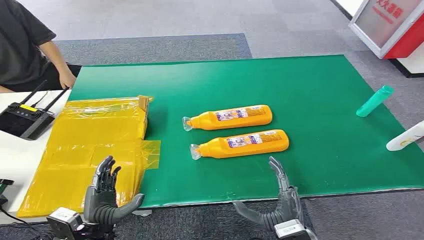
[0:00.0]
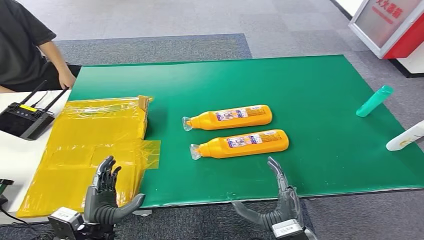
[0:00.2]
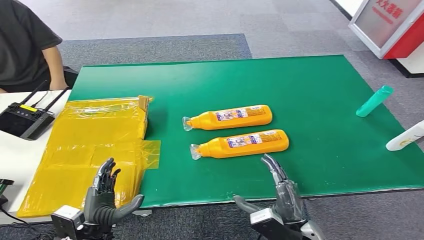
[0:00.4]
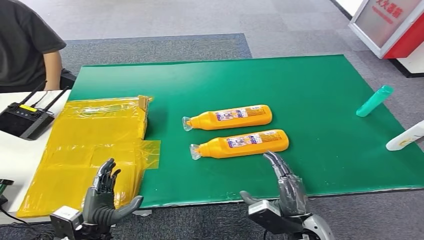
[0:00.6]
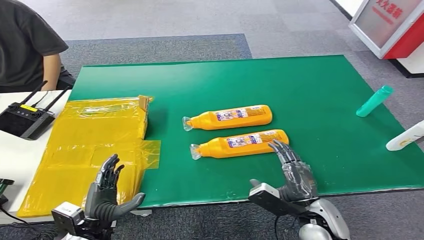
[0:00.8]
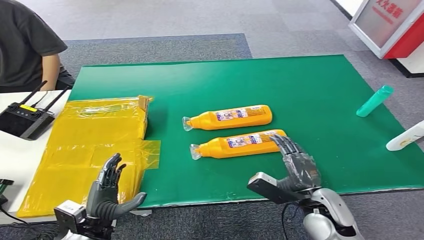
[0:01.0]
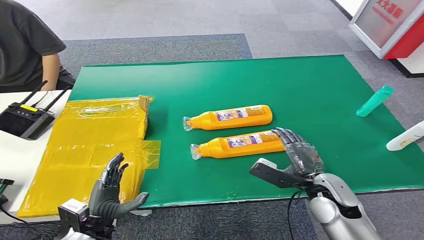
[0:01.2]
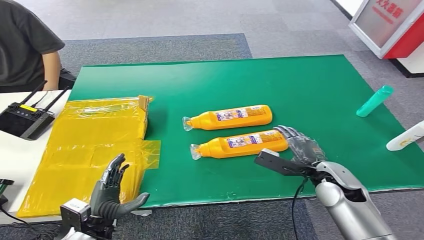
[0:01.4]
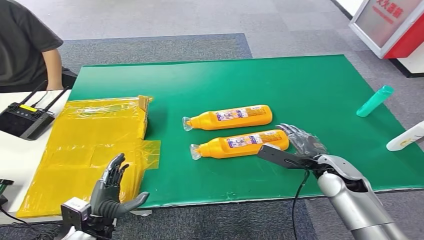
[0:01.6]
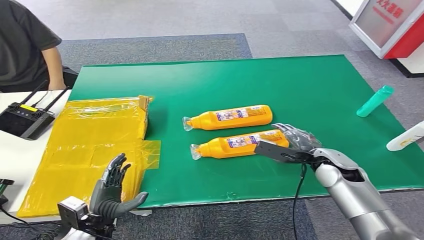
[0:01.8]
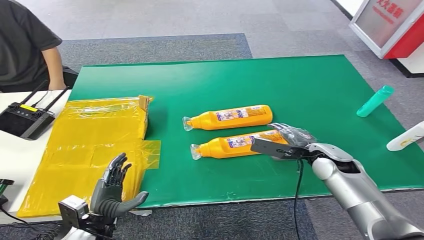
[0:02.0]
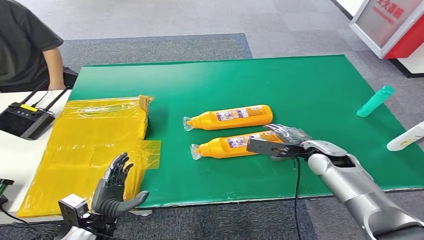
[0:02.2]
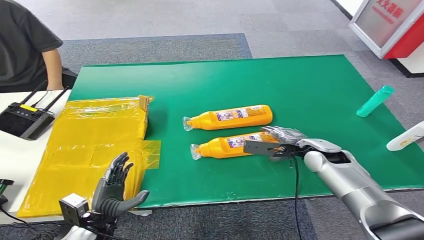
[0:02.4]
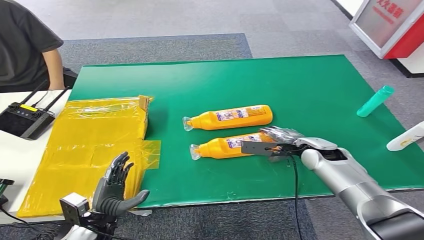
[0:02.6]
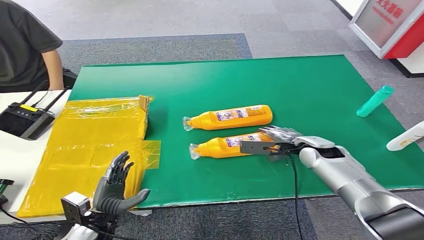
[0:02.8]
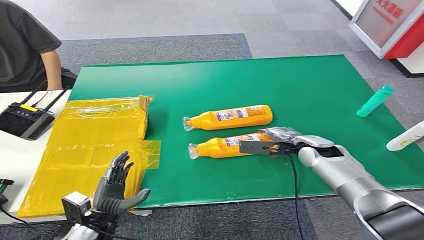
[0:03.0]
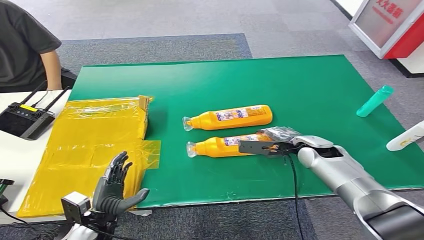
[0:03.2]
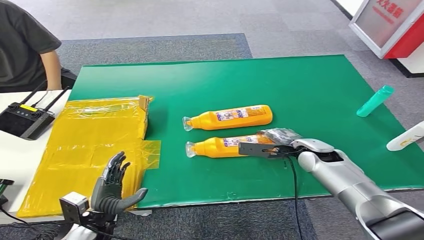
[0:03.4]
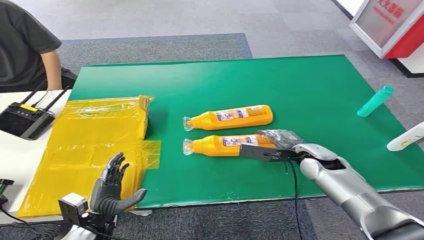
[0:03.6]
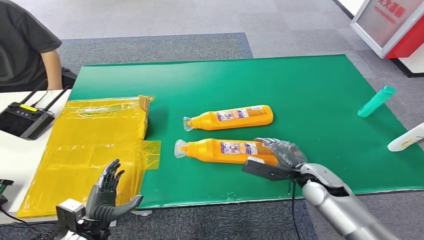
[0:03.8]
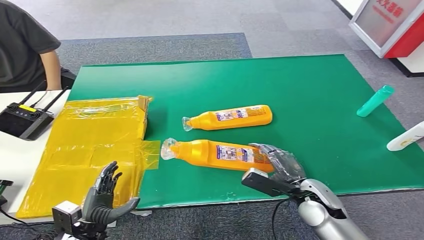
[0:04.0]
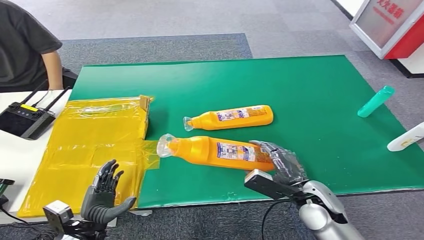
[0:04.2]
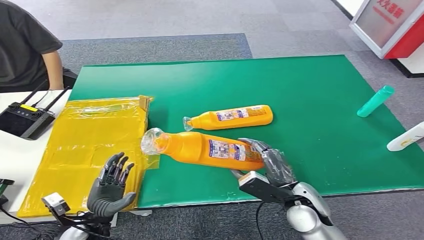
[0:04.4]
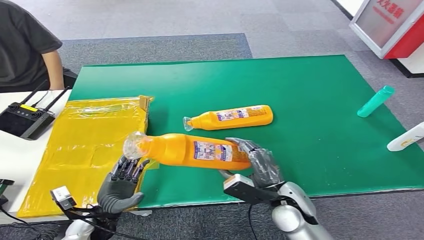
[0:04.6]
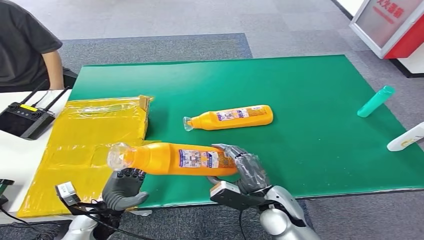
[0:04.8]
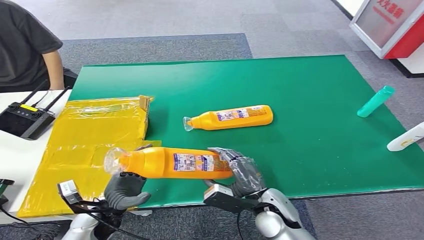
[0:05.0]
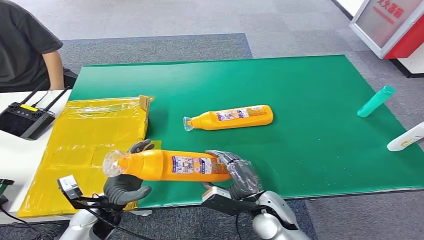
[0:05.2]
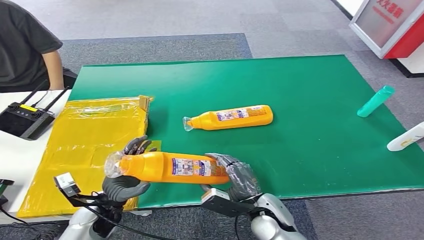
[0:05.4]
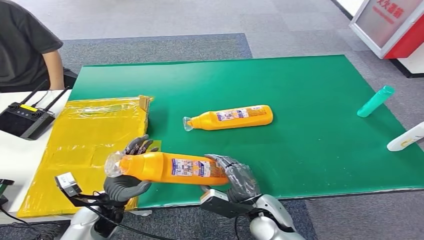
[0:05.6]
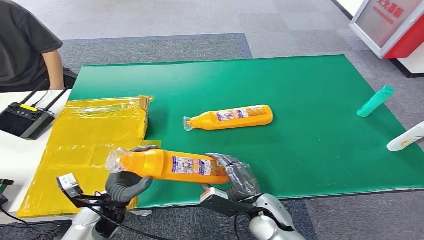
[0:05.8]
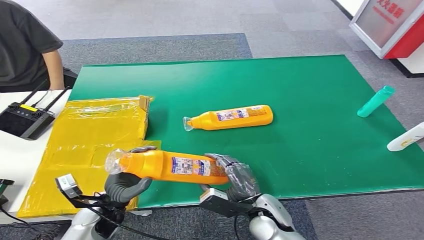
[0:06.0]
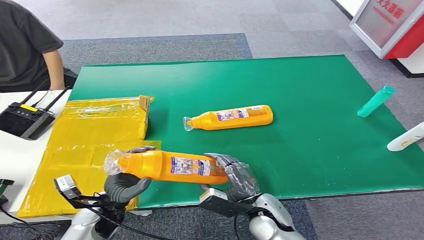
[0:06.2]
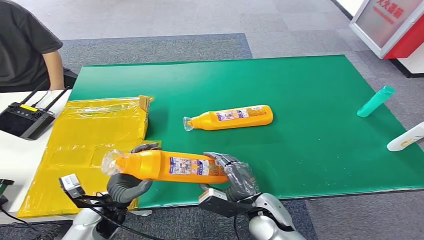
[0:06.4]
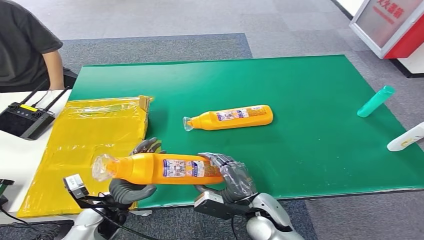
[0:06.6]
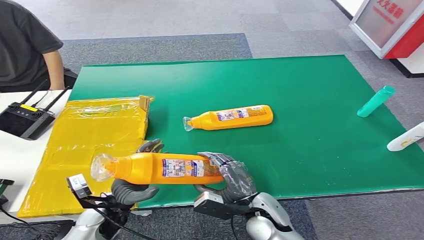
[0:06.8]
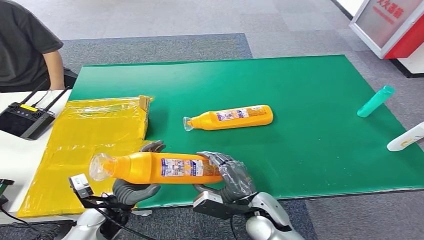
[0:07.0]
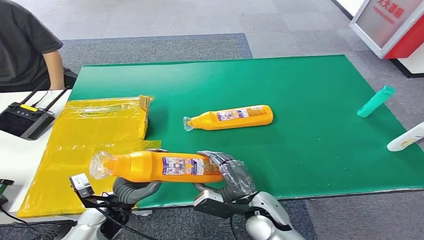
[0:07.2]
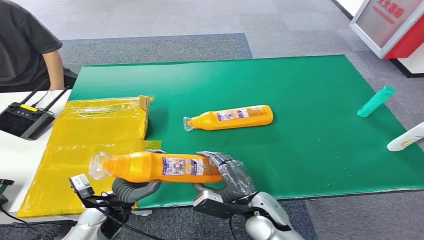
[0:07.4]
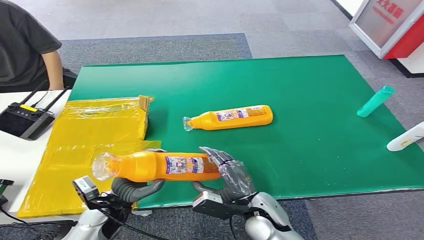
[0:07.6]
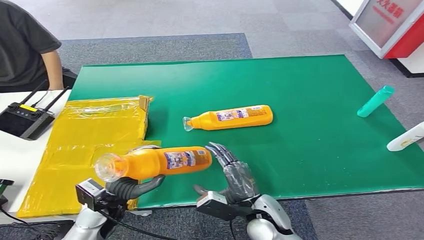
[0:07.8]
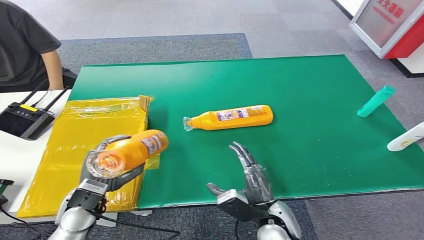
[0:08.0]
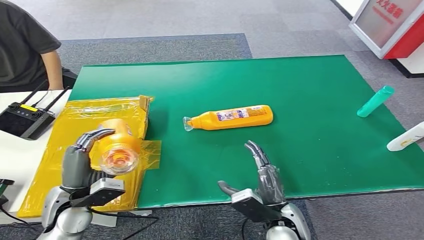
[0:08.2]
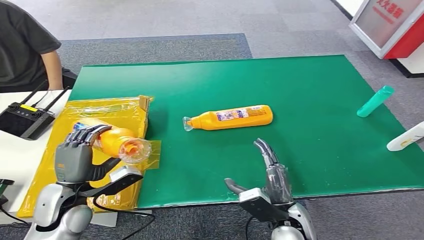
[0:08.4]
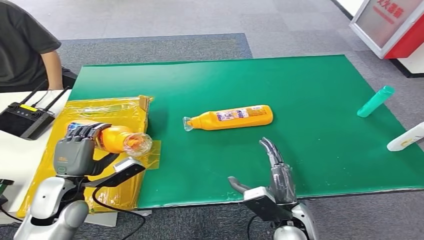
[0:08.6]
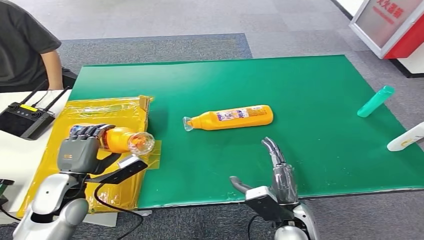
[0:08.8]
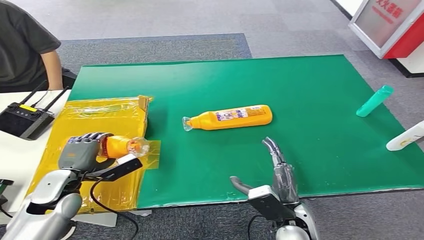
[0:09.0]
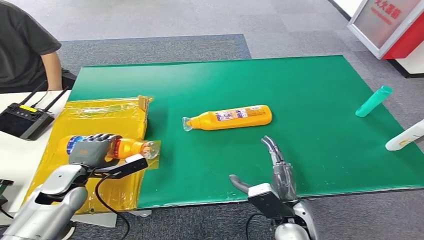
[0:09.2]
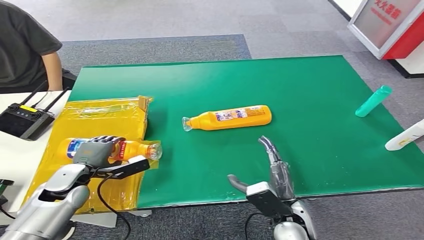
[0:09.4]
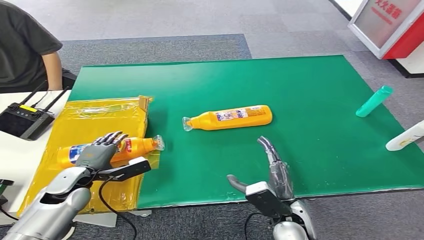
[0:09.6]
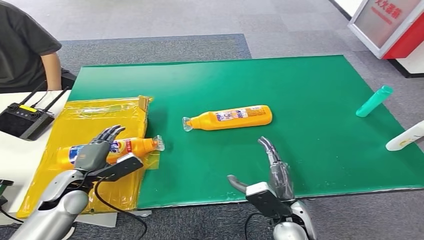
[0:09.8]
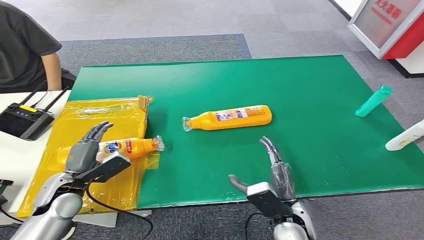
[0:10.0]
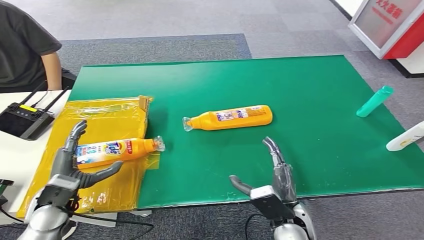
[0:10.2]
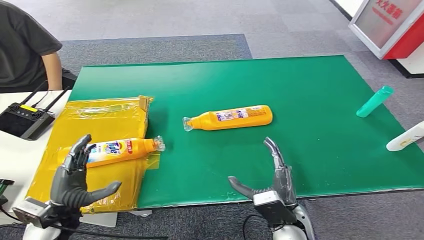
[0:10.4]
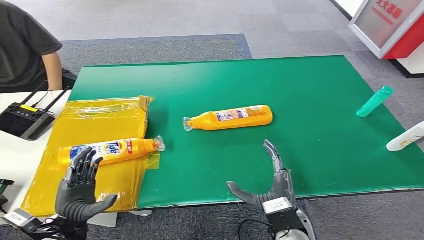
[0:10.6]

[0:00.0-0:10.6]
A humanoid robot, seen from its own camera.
Step, 0:00.0 to 0:04.2: Pick up the bottle from the table.
Step, 0:04.4 to 0:10.6: Turn the bottle to the front side.
0:01.6 to 0:03.0: The right hand travels forward by approximately 10 cm.
0:03.0 to 0:04.6: The right hand heads backward and to the left, covering roughly 20 cm.
0:04.6 to 0:06.0: The right hand moves roughly 5 cm.
0:06.0 to 0:07.6: The hands stay close to where they were, moving slightly.
0:07.6 to 0:09.0: The left hand heads to the left and upward, covering roughly 10 cm. Meanwhile the right hand travels to the right by about 5 cm.
0:09.0 to 0:10.6: The left hand goes roughly 10 cm backward and downward.

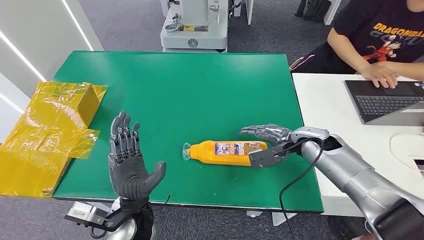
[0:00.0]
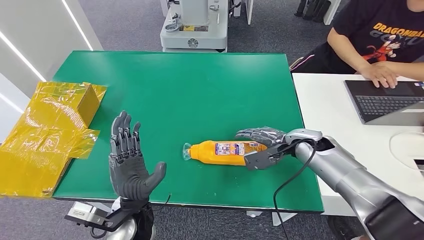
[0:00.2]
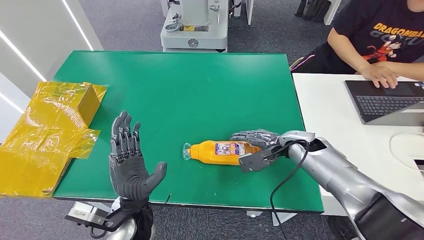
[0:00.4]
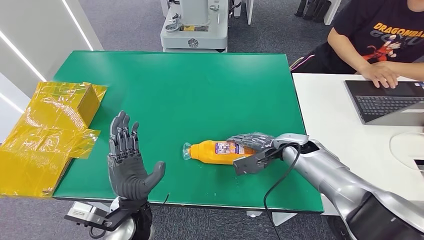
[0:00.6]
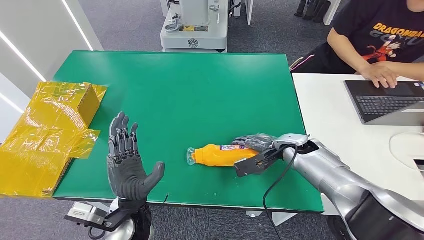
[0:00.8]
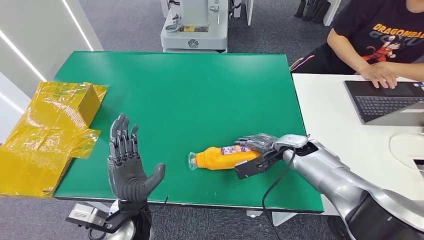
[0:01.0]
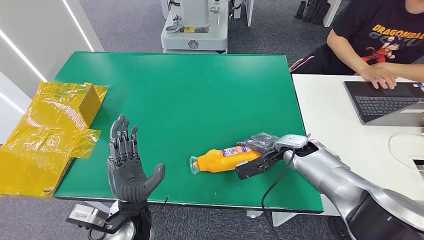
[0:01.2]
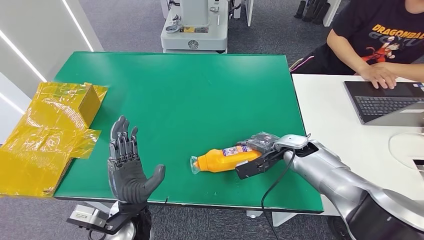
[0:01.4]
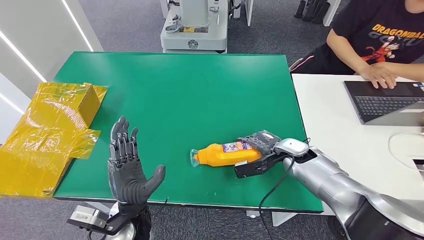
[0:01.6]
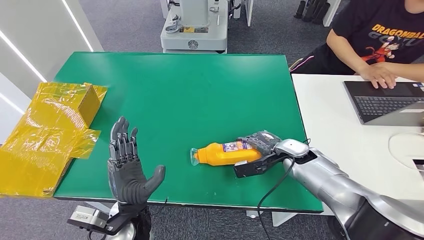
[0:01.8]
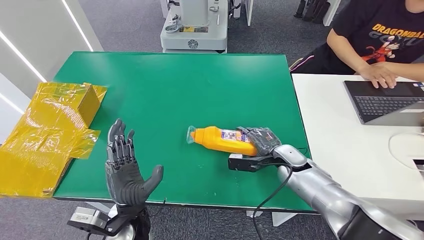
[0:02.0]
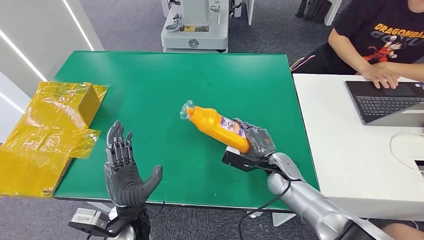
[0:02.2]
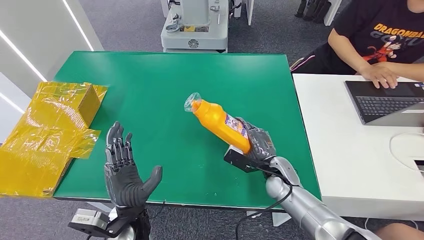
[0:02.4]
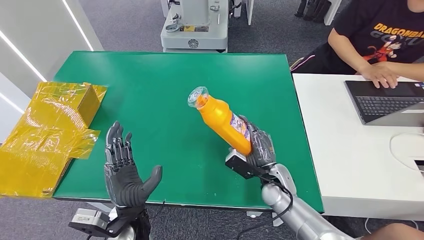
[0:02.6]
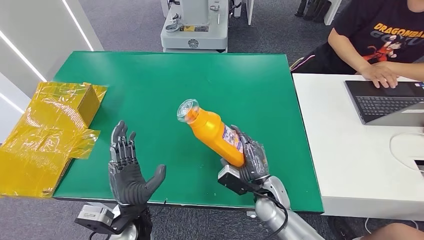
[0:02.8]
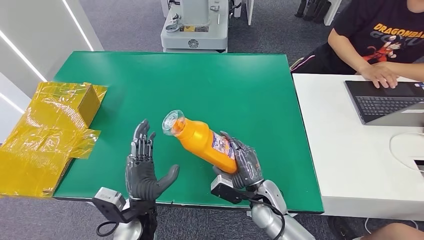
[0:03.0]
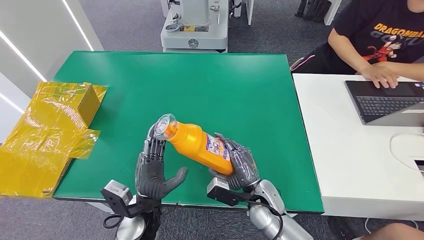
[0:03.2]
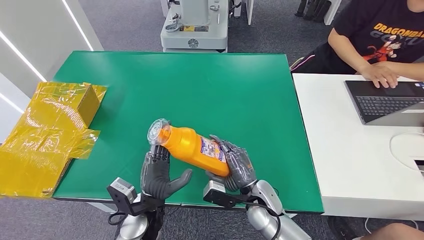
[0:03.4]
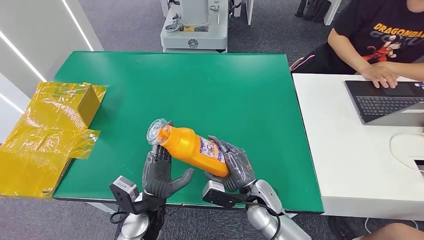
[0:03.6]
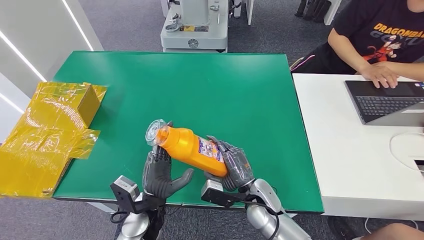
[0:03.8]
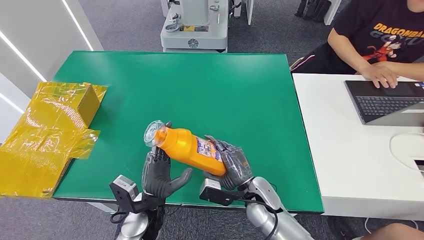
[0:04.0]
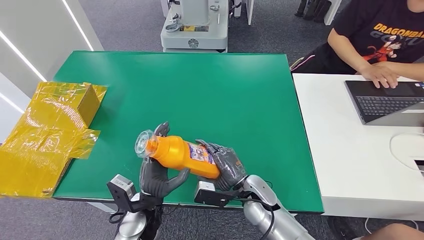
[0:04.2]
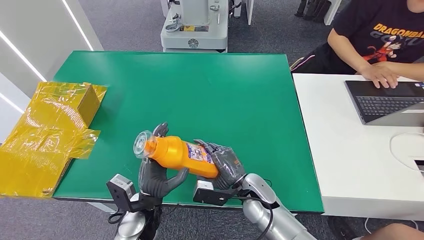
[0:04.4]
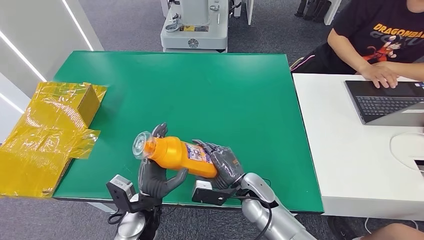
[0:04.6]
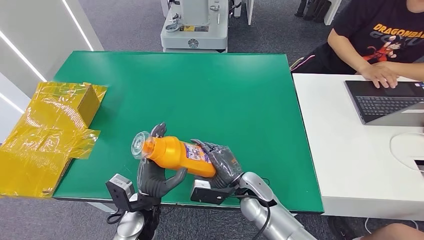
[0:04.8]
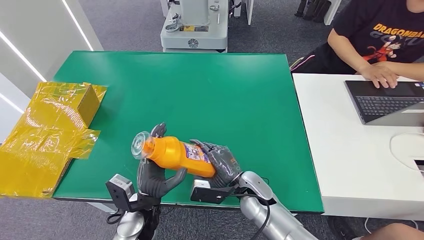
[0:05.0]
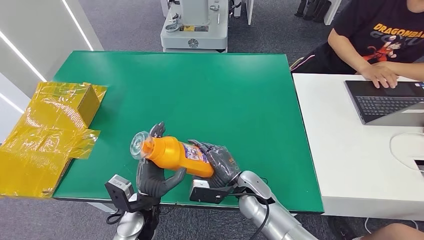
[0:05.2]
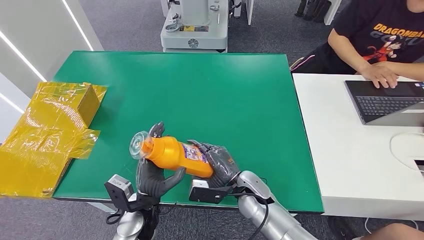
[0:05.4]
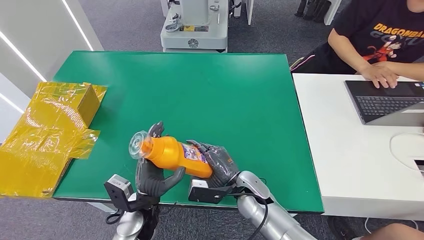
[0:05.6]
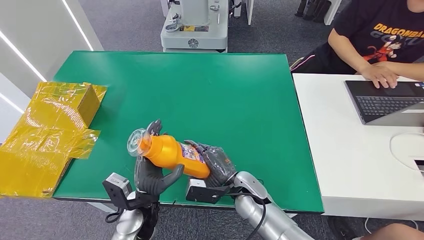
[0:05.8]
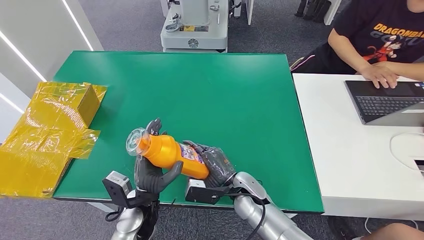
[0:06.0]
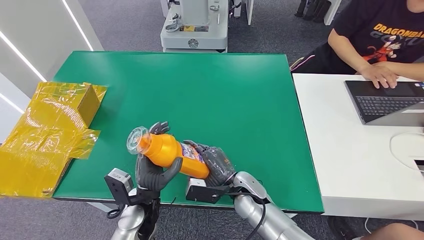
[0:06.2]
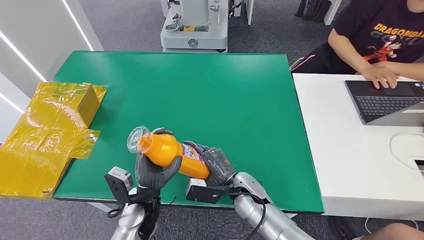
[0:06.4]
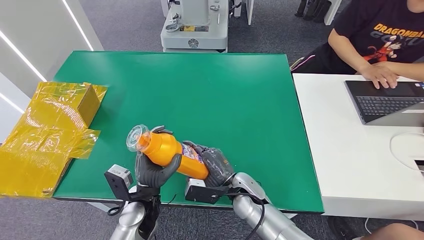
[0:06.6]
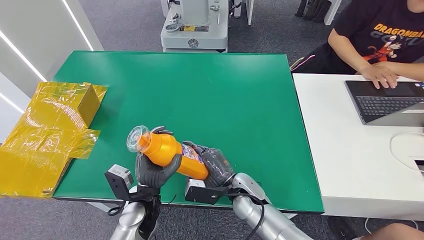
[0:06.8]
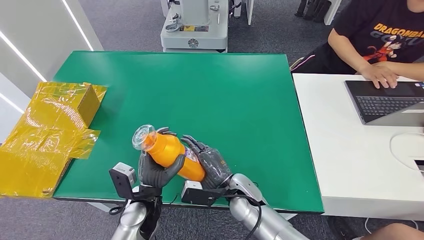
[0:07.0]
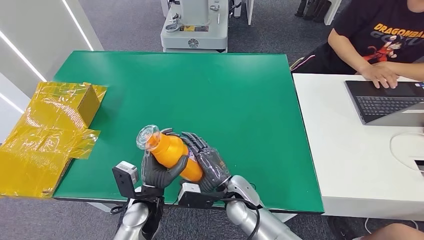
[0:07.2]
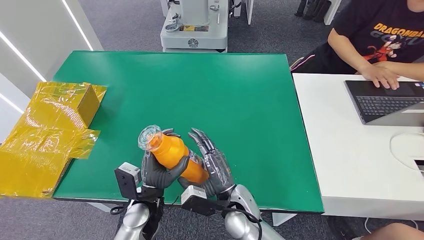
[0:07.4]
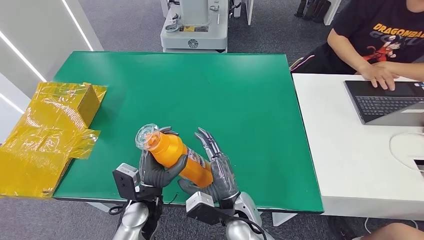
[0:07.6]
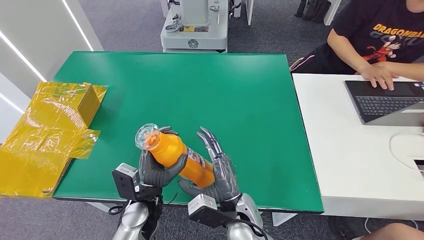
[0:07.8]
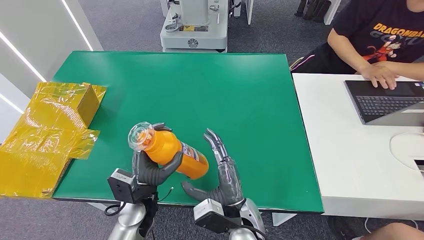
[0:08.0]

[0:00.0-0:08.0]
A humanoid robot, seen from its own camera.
Step, 0:00.0 to 0:04.8: Pick up the bottle from the table.
0:01.6 to 0:03.2: The right hand is displaced backward, to the left and downward by some 20 cm.
0:03.2 to 0:04.8: The hands stay close to where they were, moving slightly.
0:04.8 to 0:06.4: The hands make only small movements.
0:06.4 to 0:08.0: The right hand moves backward, some 10 cm.
